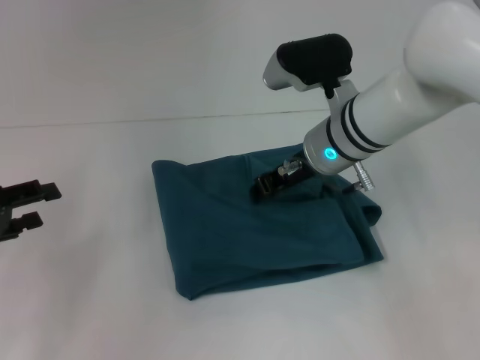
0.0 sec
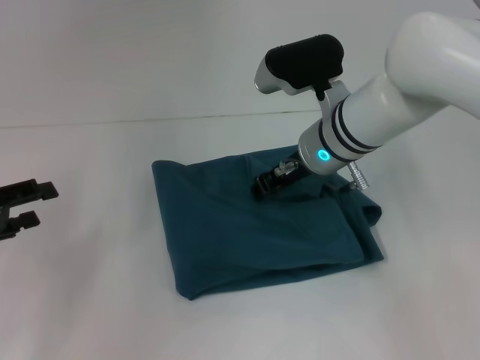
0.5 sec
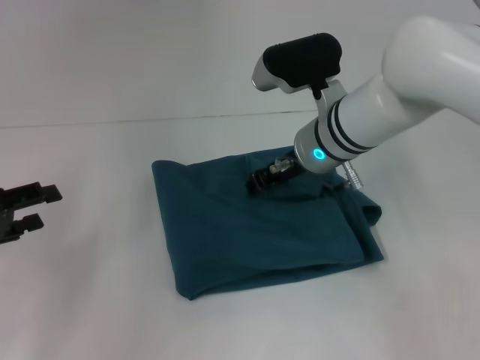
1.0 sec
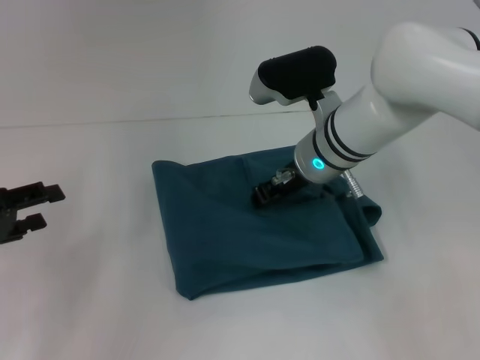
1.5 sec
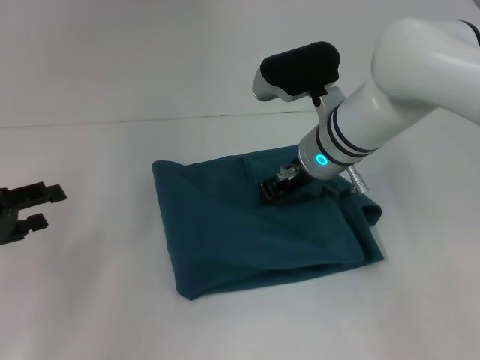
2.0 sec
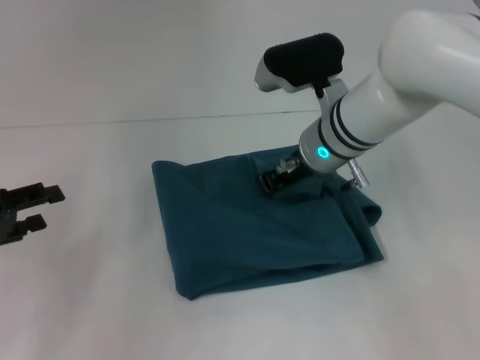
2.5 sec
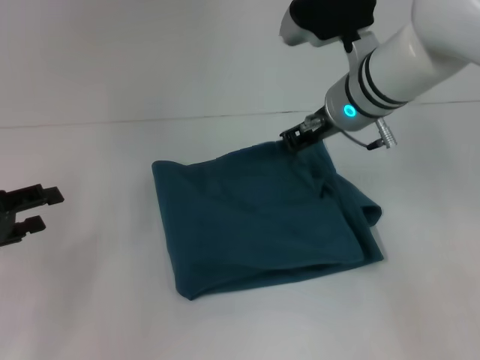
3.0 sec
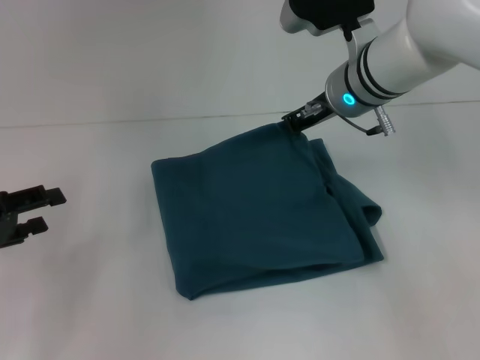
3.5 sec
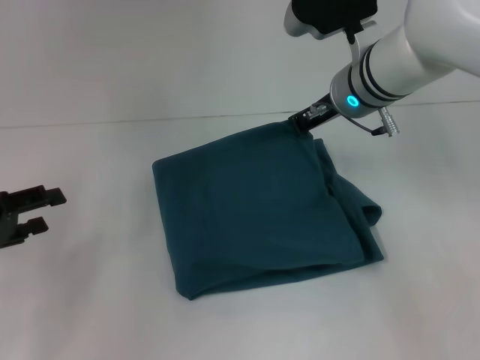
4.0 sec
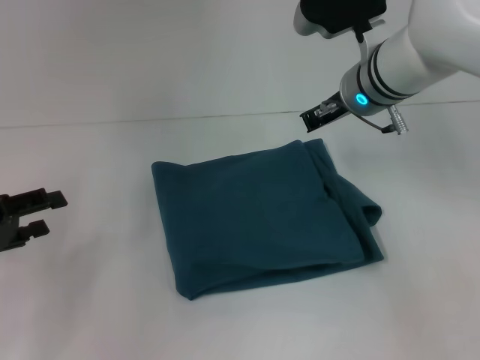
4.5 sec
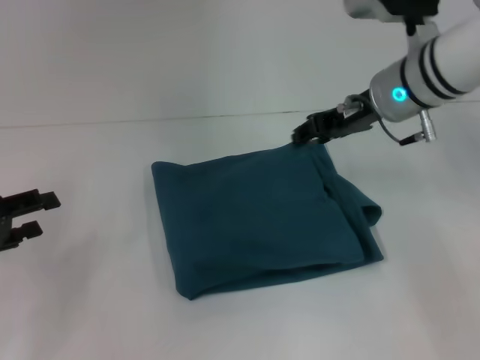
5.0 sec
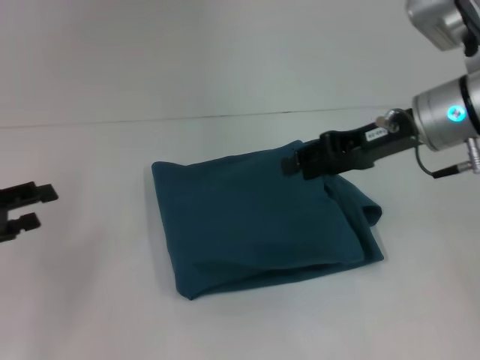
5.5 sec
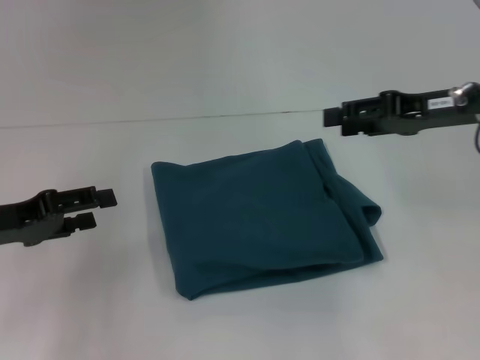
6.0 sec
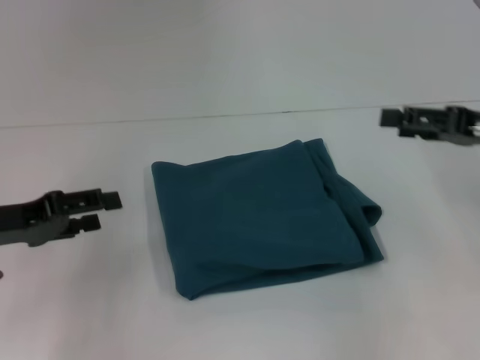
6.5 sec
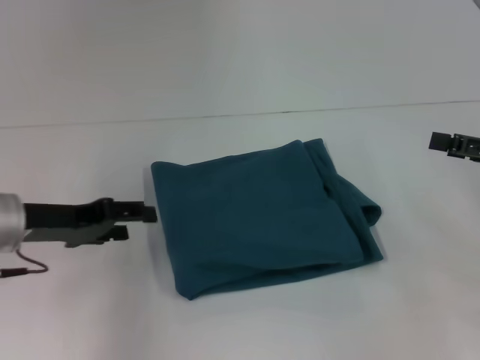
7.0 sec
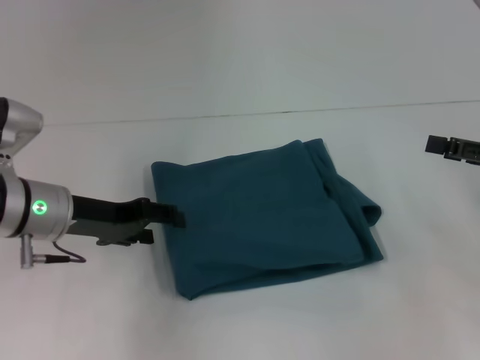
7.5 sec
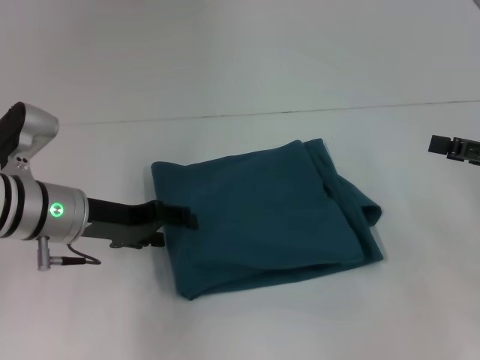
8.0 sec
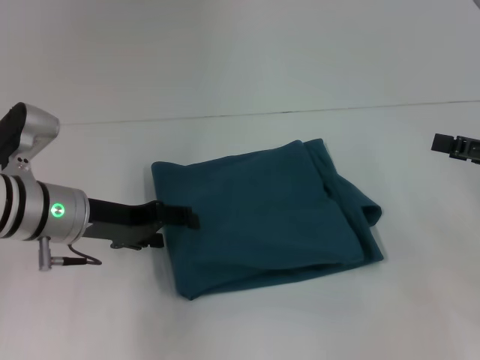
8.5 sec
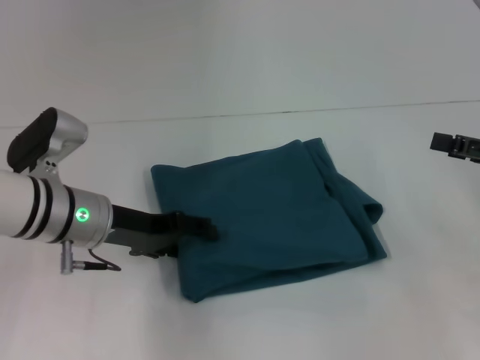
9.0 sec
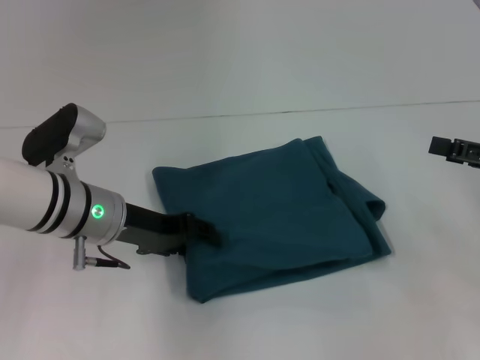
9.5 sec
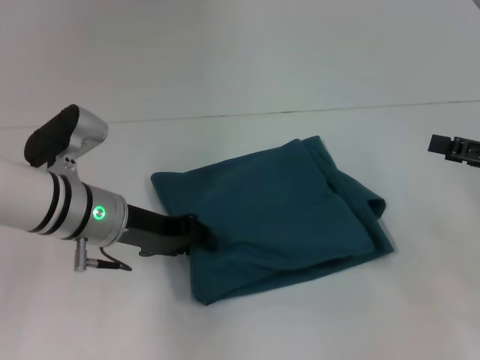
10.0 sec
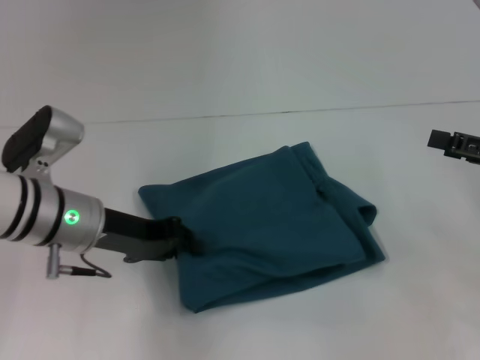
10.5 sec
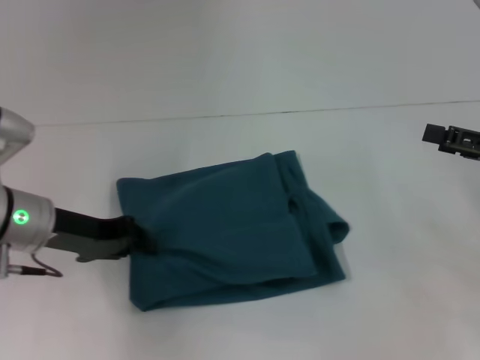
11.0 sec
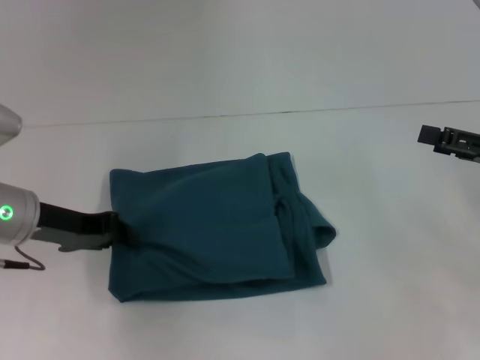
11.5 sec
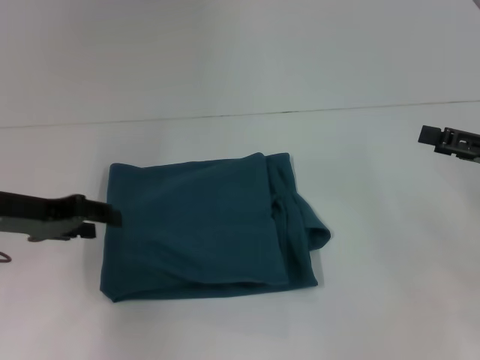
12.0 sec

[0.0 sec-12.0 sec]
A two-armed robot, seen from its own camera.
0.0 sec to 2.0 sec: There are only small adjustments of the grippers.
2.0 sec to 4.0 sec: The right gripper moves about 5 cm.
4.0 sec to 6.0 sec: The right gripper goes about 15 cm to the right and backward, and opens up.
6.0 sec to 8.0 sec: The left gripper travels to the right and forward by approximately 10 cm. Meanwhile the right gripper goes about 15 cm to the right, backward and downward.
8.0 sec to 10.0 sec: The left gripper closes its fingers.
10.0 sec to 12.0 sec: The left gripper travels to the left by approximately 10 cm.

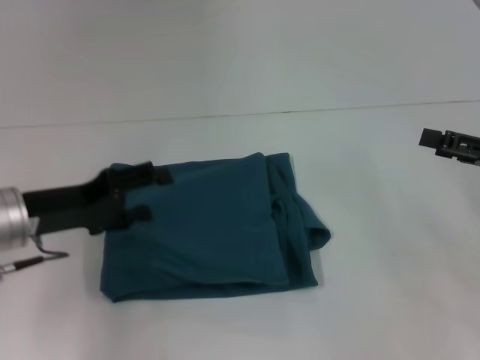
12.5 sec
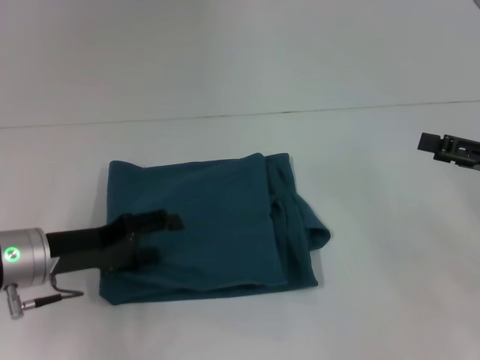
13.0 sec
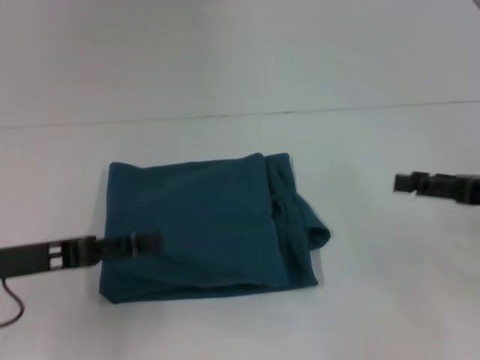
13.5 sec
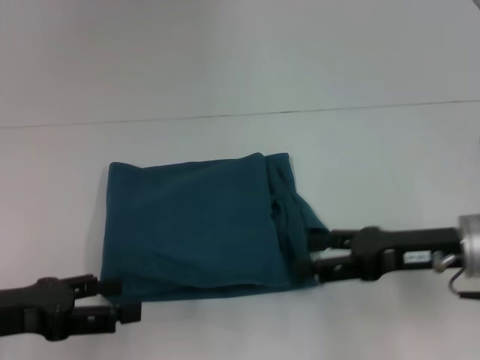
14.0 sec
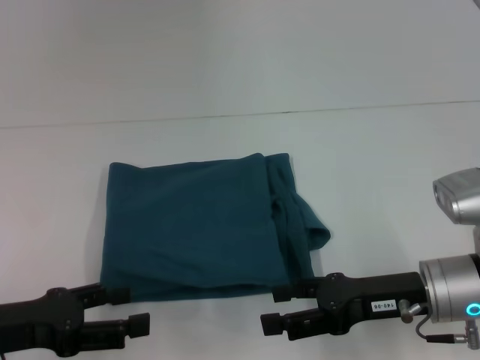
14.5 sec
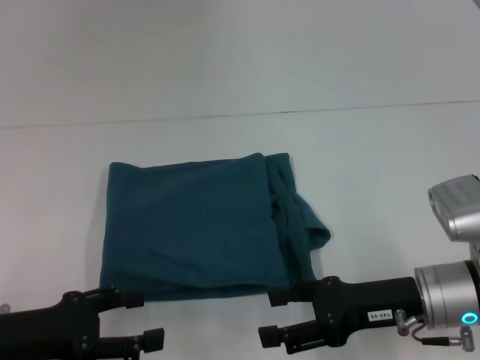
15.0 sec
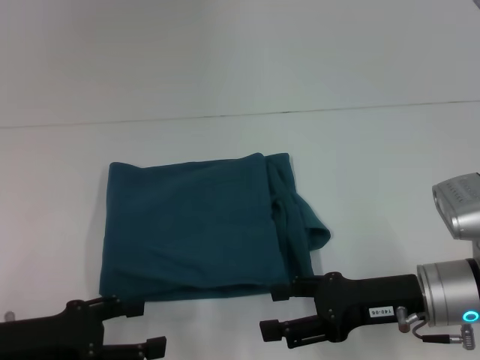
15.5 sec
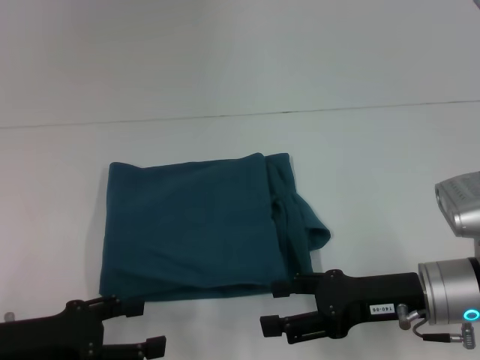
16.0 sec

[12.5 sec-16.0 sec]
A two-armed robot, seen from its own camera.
12.5 sec to 14.5 sec: The right gripper goes about 15 cm to the left and downward. Meanwhile the left gripper moves backward, roughly 10 cm.
14.5 sec to 16.0 sec: The grippers move only a little.

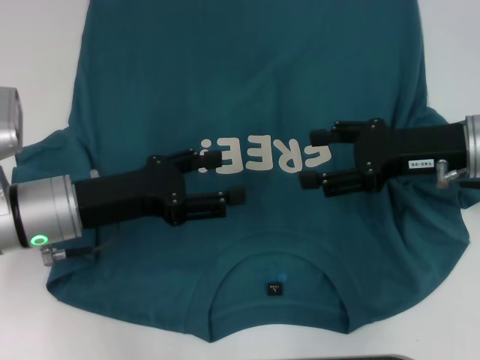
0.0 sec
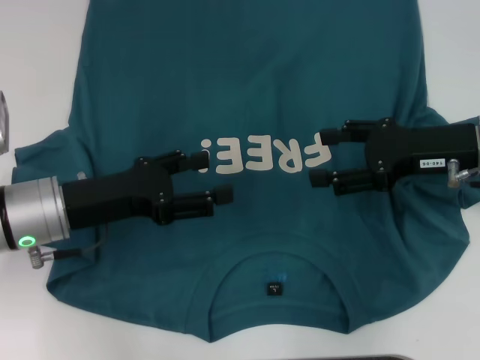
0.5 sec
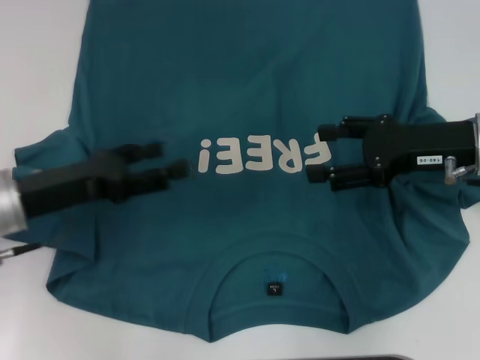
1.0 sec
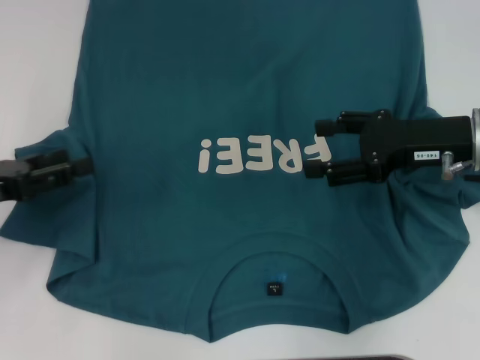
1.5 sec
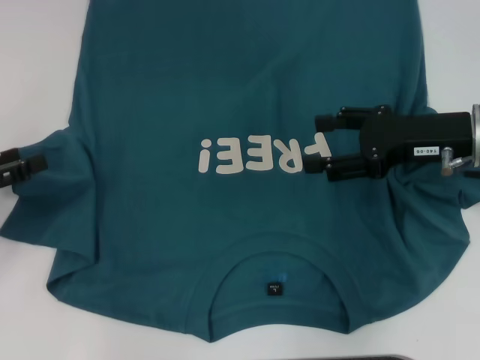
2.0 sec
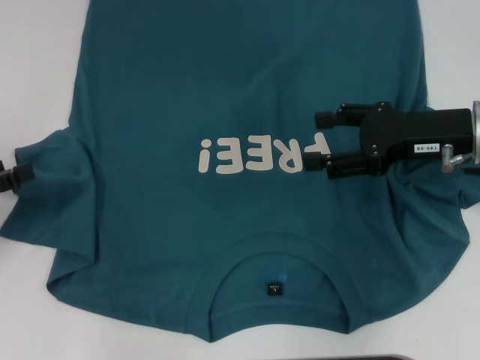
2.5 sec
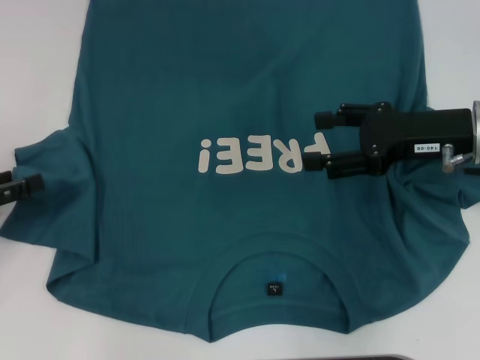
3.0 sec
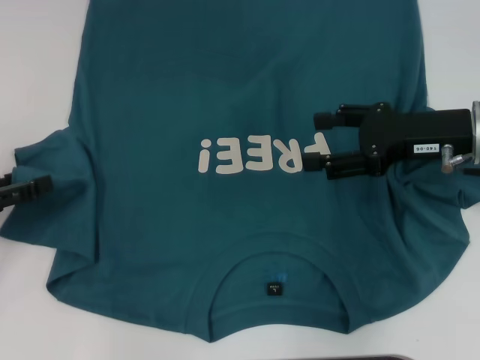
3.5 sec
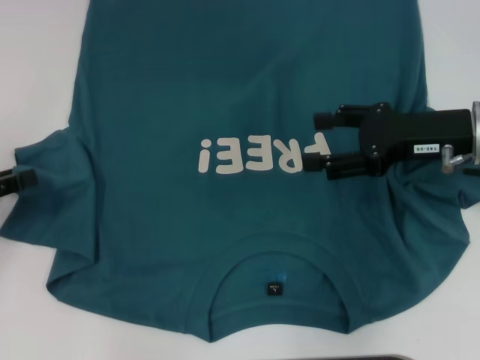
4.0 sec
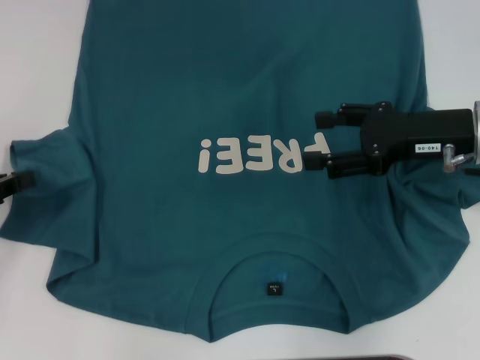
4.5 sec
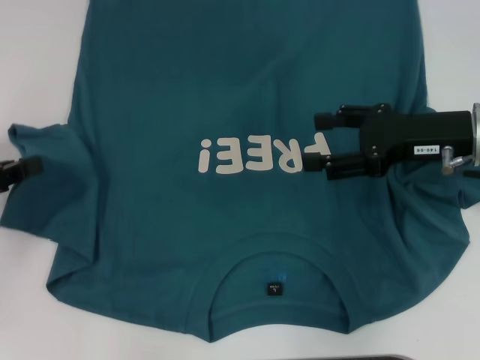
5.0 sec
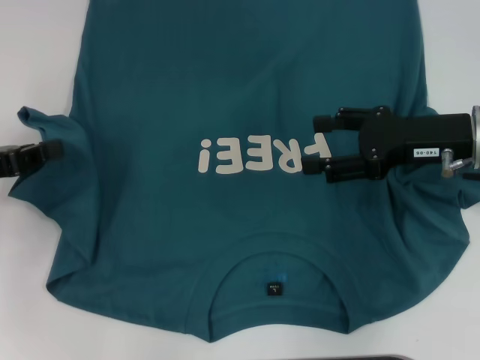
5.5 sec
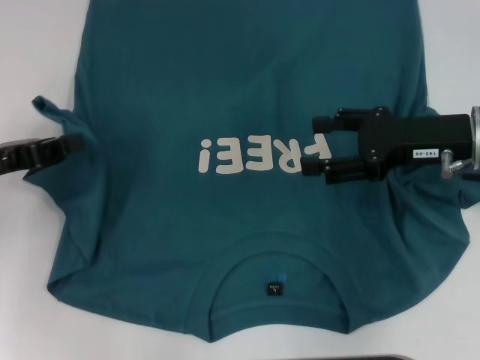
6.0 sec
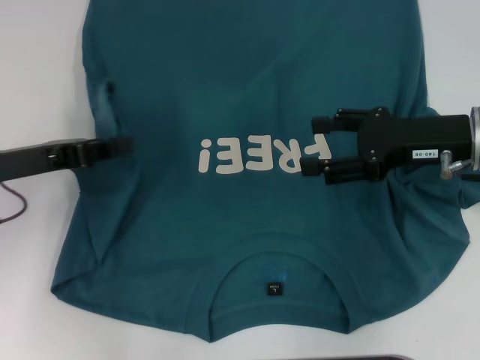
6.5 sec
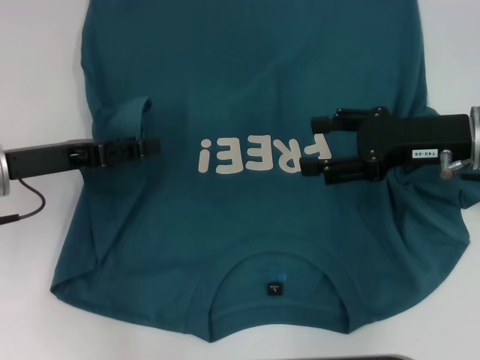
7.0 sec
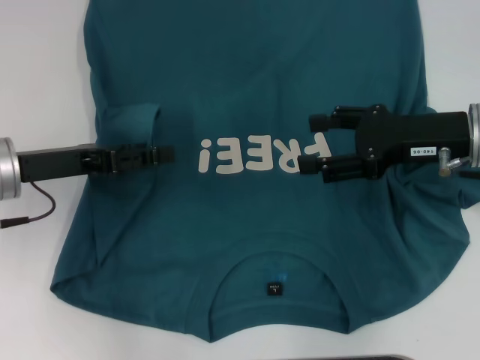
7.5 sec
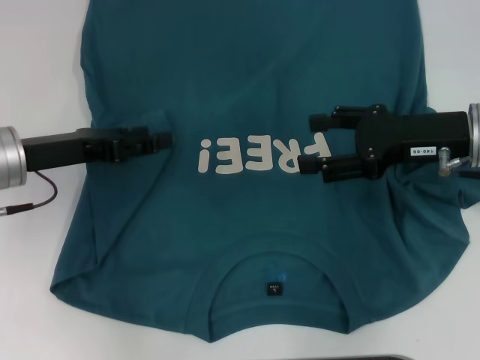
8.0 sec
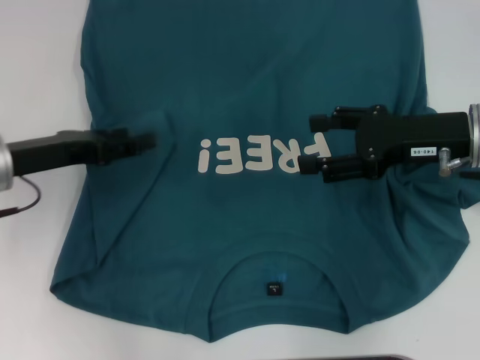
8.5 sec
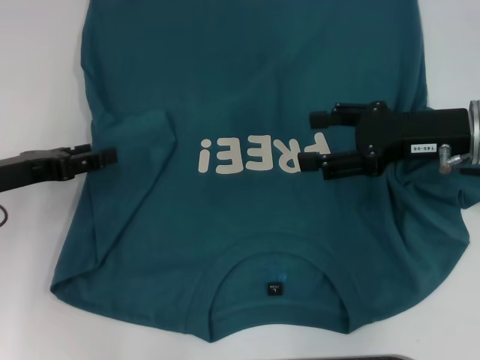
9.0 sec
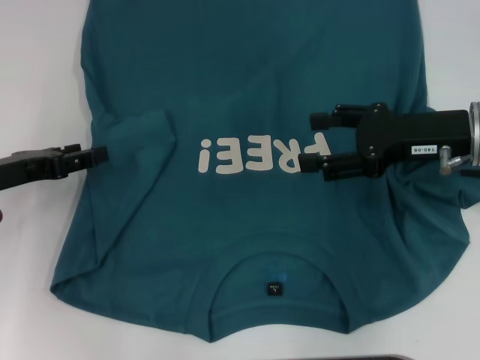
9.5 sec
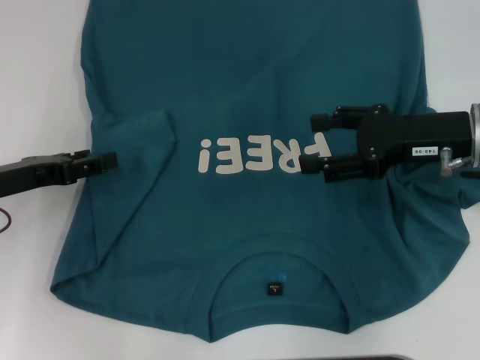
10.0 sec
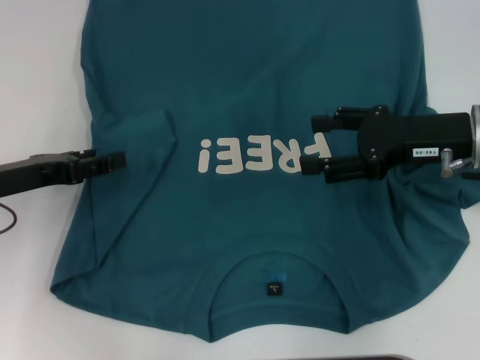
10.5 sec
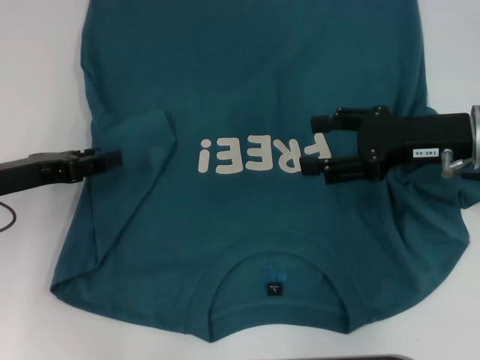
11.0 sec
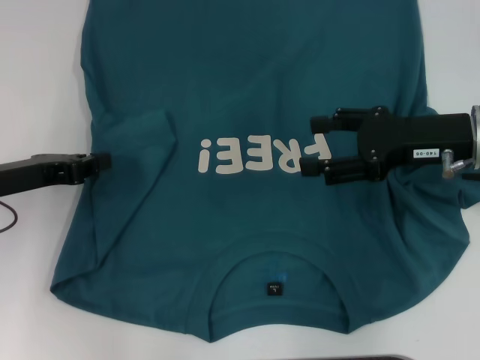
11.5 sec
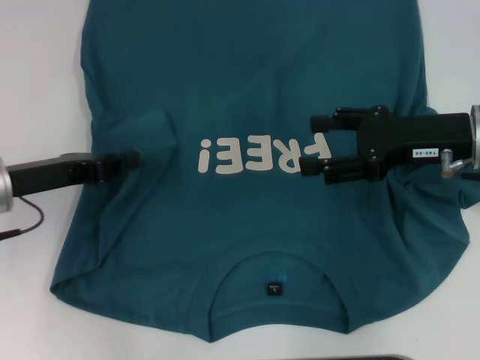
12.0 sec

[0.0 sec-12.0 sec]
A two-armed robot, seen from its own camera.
0.0 sec to 2.0 sec: The left gripper goes roughly 15 cm to the left.
2.0 sec to 4.0 sec: The grippers stay close to where they were, moving slightly.
4.0 sec to 6.0 sec: The left gripper goes roughly 5 cm to the right, and closes up.
6.0 sec to 8.0 sec: The left gripper heads to the right, covering approximately 5 cm, and opens its fingers.
8.0 sec to 10.0 sec: The left gripper moves roughly 5 cm.
10.0 sec to 12.0 sec: The left gripper closes up.
